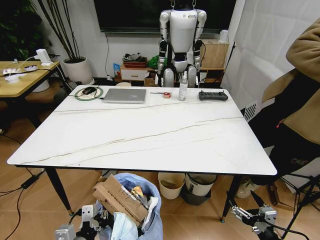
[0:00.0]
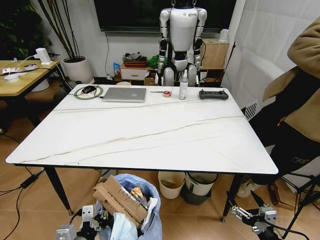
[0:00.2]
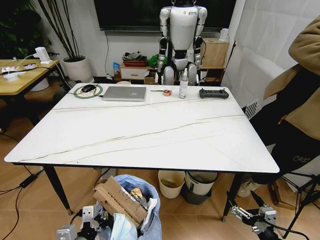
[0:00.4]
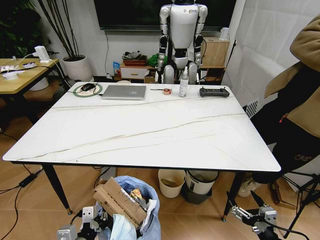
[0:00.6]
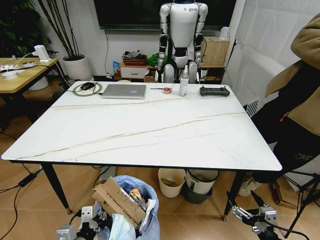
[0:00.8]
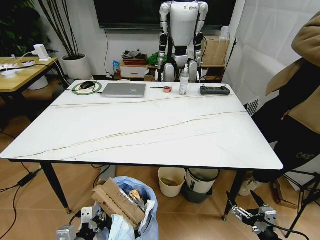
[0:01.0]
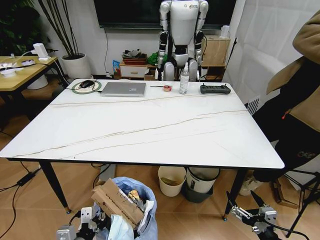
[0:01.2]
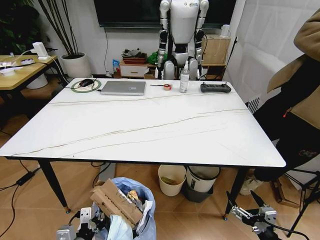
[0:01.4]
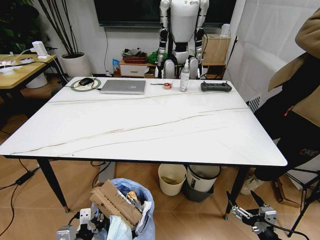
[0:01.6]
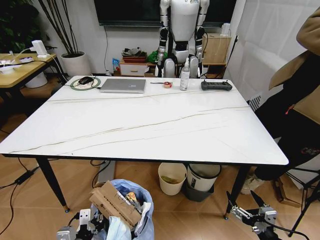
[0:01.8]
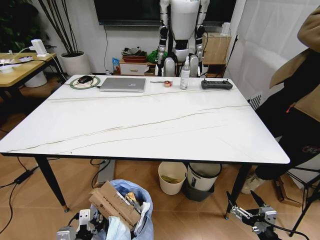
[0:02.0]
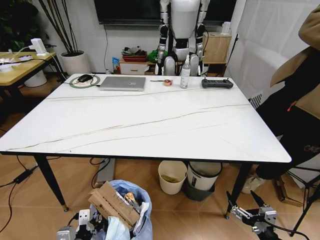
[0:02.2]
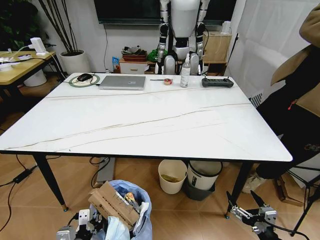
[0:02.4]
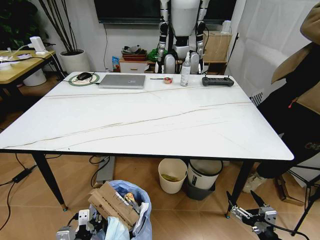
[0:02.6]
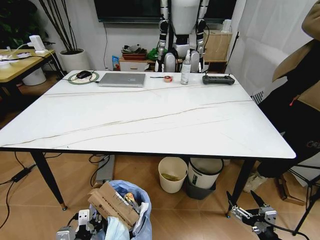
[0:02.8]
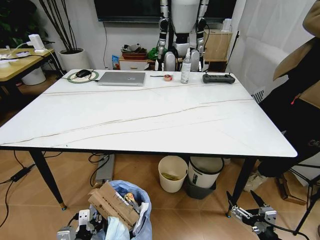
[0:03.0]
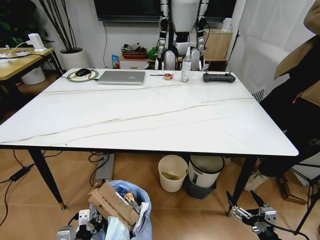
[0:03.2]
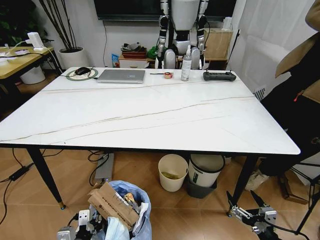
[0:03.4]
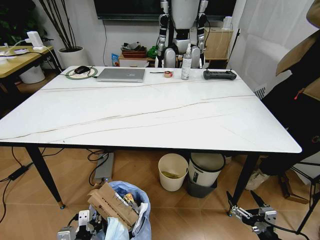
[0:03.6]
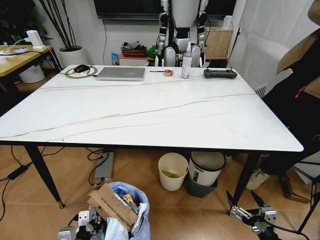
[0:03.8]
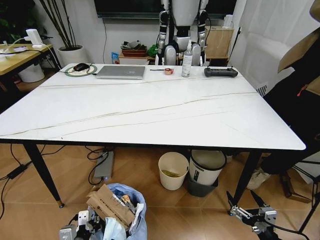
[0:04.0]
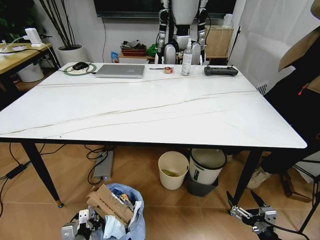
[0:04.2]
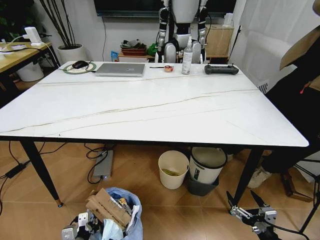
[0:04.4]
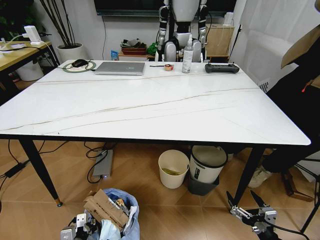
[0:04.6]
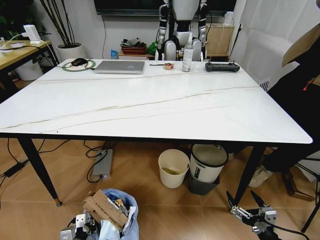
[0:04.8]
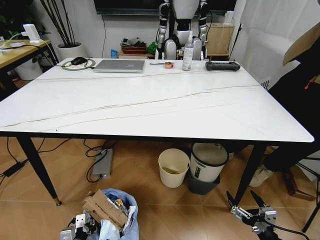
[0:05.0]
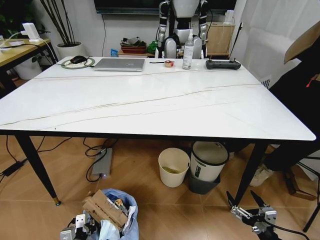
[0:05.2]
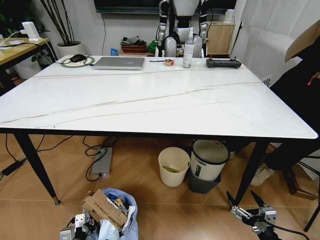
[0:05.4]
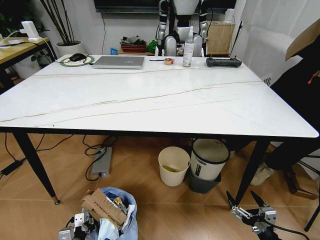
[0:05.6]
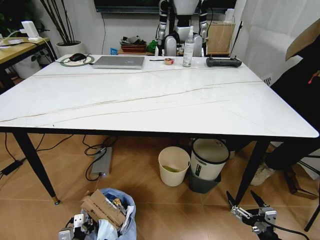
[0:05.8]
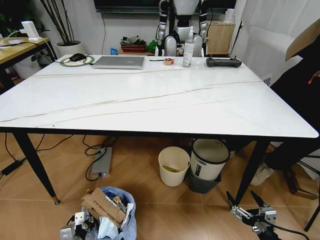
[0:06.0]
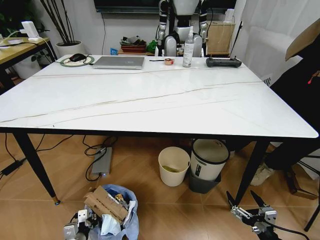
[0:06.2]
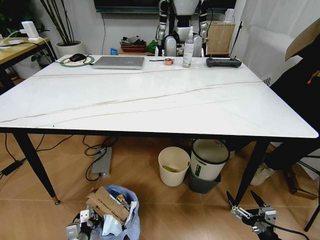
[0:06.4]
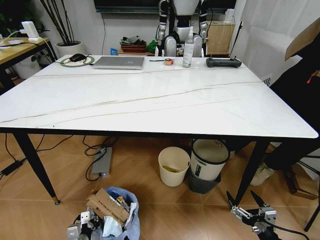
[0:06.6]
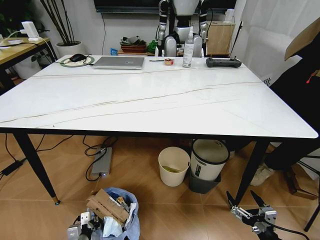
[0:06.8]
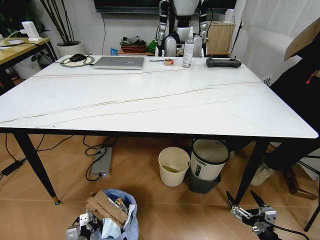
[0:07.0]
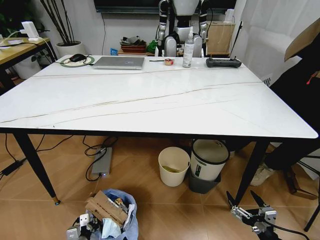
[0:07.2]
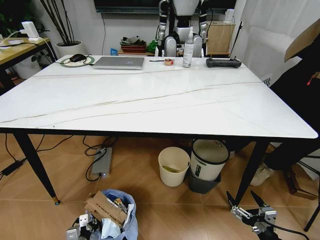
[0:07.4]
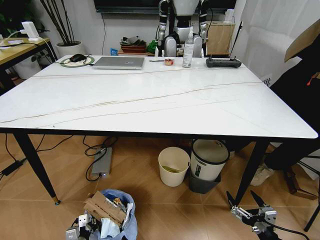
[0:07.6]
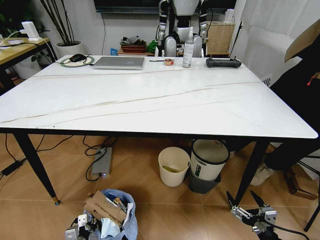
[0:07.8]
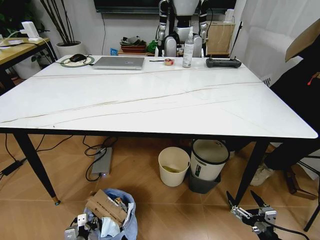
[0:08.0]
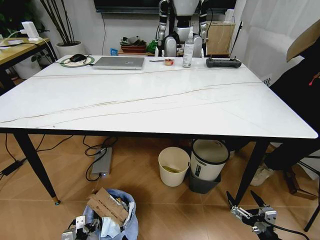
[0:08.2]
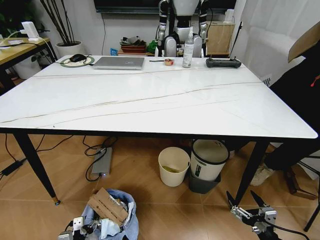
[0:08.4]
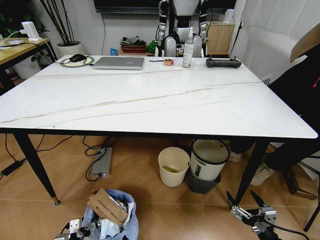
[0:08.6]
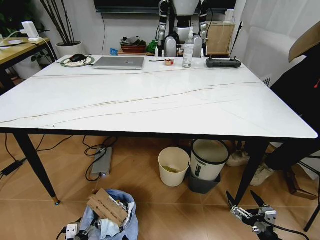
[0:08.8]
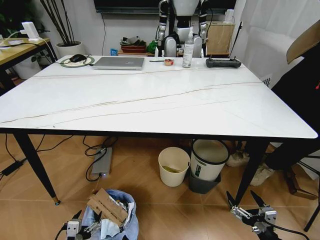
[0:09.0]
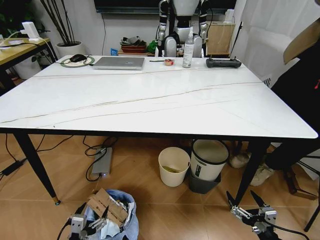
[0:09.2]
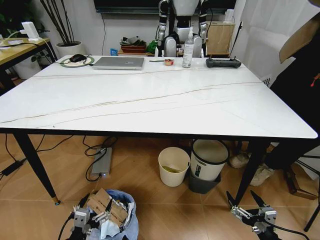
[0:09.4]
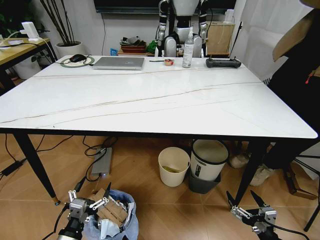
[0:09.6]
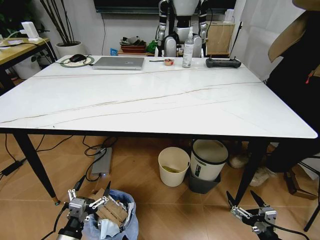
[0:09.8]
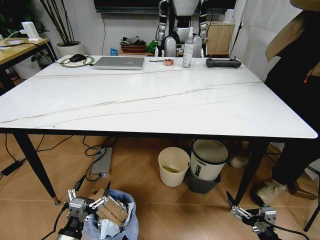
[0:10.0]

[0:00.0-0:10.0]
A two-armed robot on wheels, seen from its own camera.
Task of the whole recording: Pick up the trash bin and place the trash from the table into it.
0:02.8 to 0:04.2: The left gripper heads downward, covering about 5 cm.
0:04.2 to 0:05.8: The left gripper travels downward by roughly 5 cm.
0:05.8 to 0:07.2: The left gripper is displaced downward by approximately 5 cm.
0:07.2 to 0:08.6: The left gripper shifts by about 5 cm, and opens up.
0:08.6 to 0:10.0: The left gripper heads upward and to the right, covering approximately 15 cm, and opens.

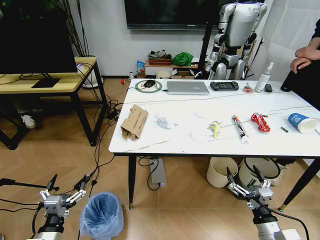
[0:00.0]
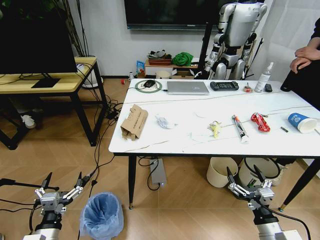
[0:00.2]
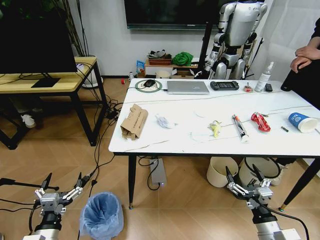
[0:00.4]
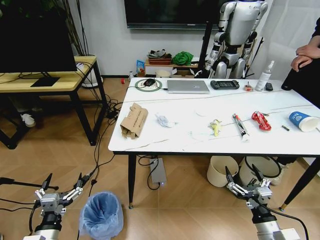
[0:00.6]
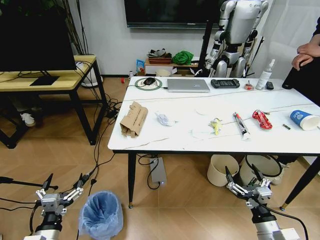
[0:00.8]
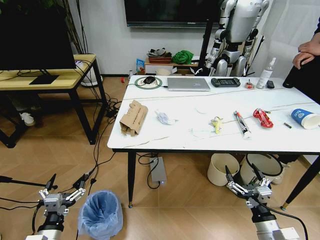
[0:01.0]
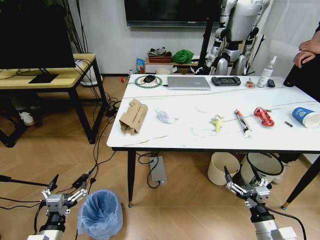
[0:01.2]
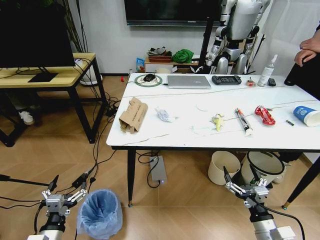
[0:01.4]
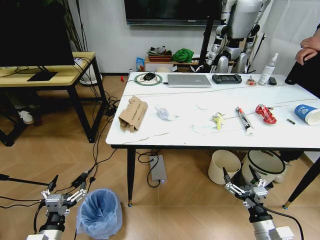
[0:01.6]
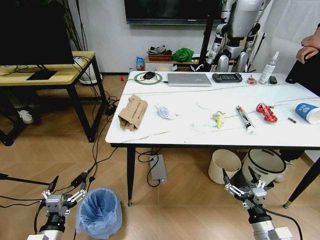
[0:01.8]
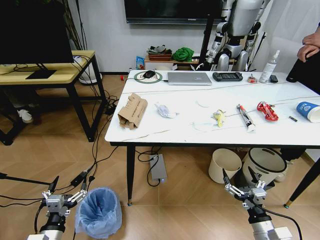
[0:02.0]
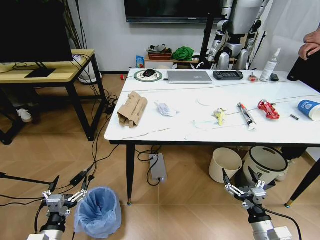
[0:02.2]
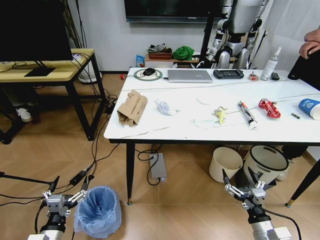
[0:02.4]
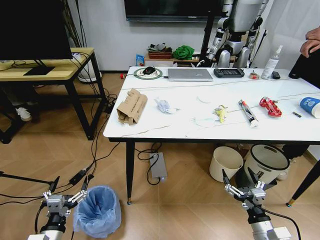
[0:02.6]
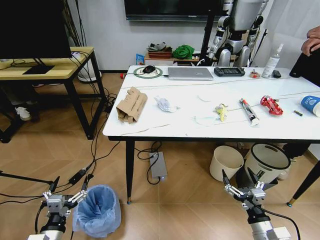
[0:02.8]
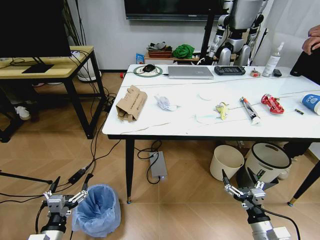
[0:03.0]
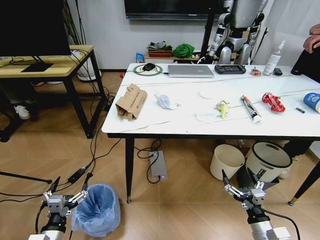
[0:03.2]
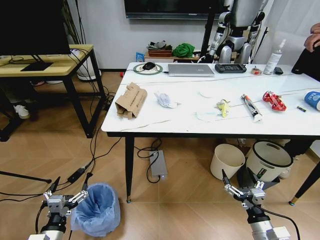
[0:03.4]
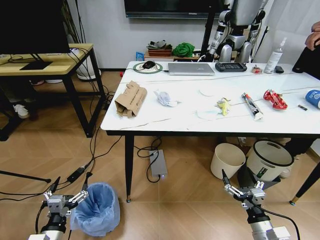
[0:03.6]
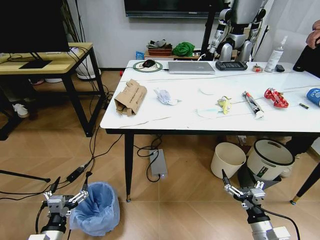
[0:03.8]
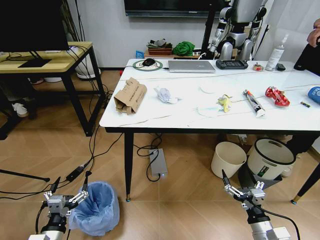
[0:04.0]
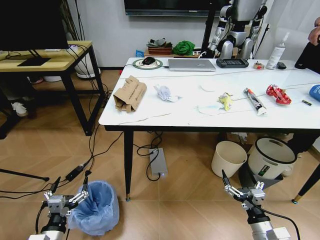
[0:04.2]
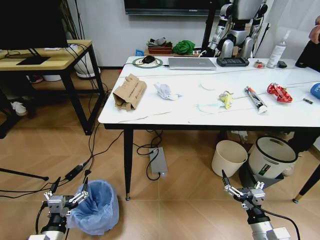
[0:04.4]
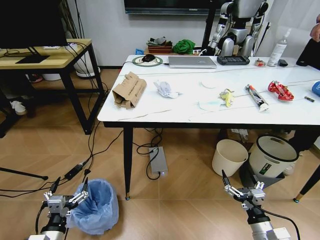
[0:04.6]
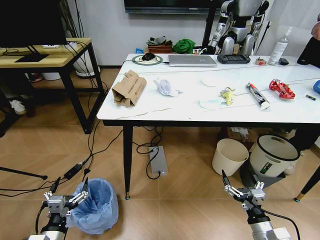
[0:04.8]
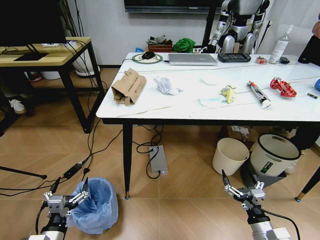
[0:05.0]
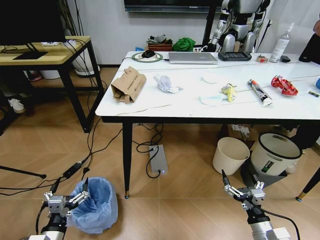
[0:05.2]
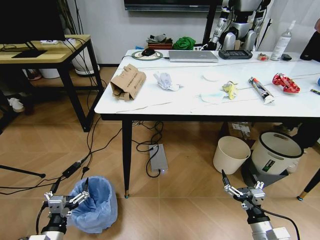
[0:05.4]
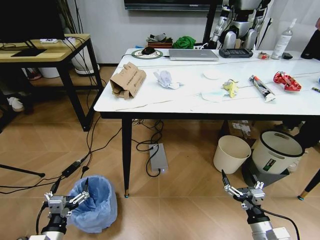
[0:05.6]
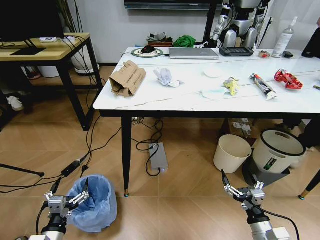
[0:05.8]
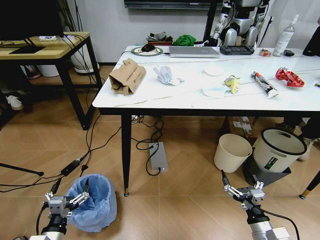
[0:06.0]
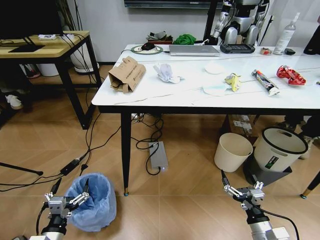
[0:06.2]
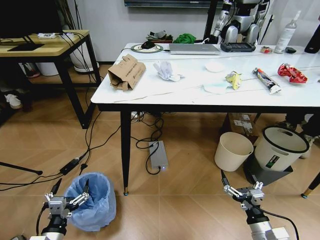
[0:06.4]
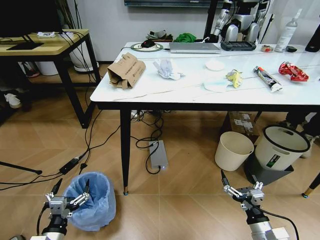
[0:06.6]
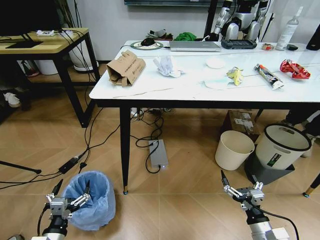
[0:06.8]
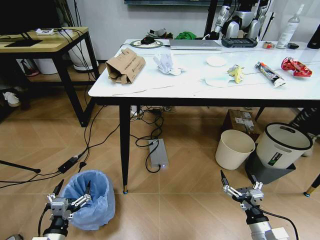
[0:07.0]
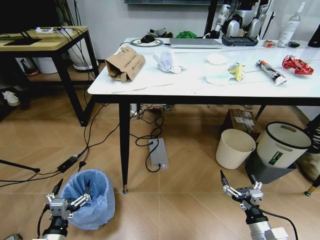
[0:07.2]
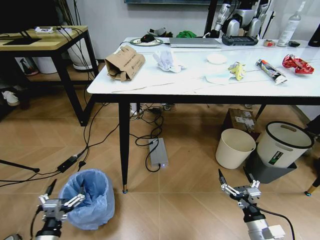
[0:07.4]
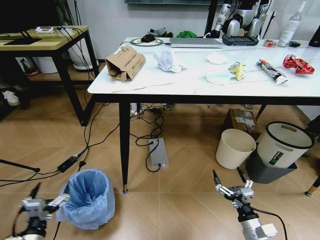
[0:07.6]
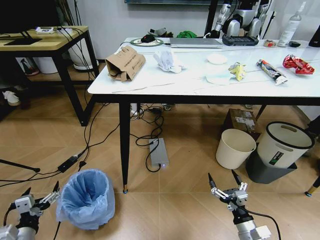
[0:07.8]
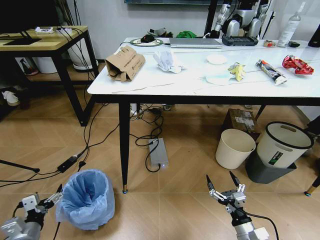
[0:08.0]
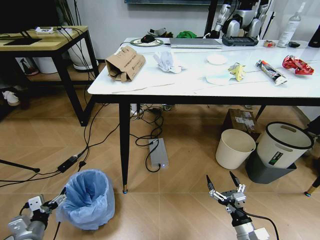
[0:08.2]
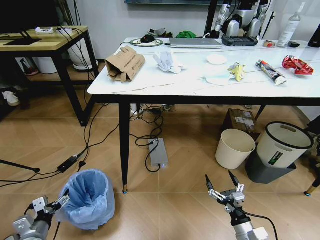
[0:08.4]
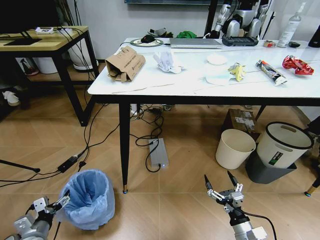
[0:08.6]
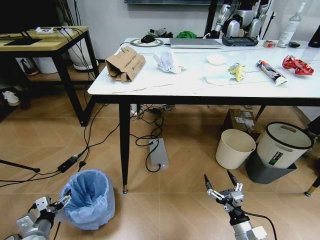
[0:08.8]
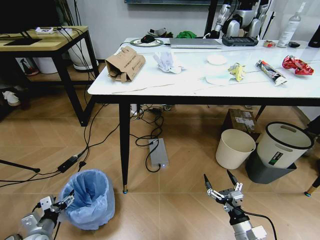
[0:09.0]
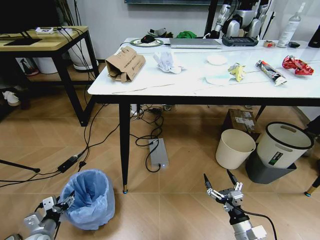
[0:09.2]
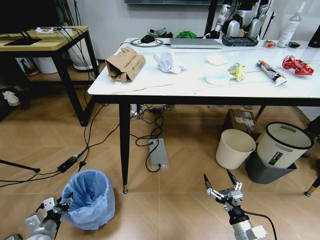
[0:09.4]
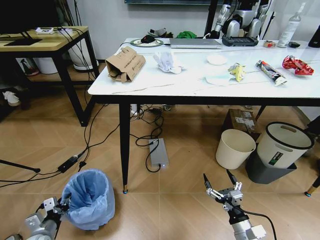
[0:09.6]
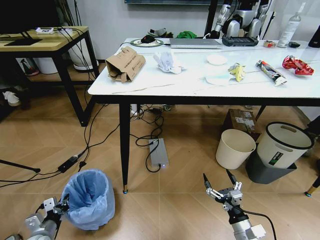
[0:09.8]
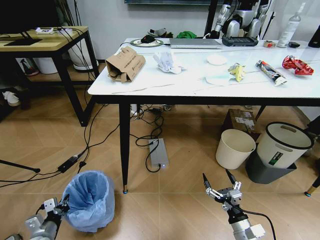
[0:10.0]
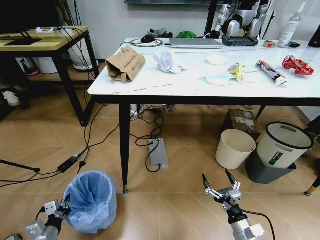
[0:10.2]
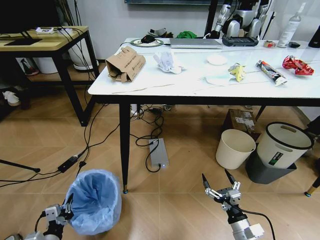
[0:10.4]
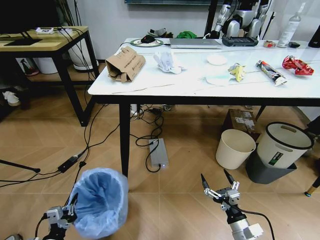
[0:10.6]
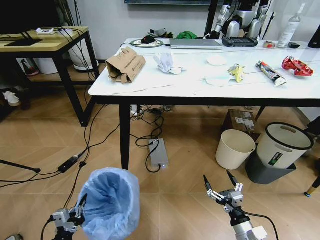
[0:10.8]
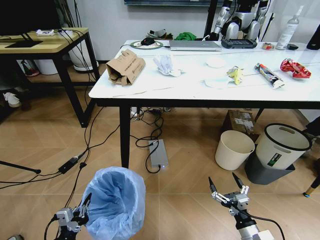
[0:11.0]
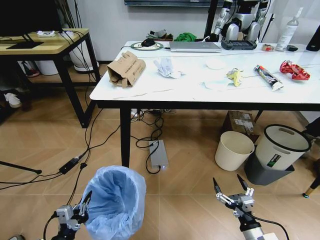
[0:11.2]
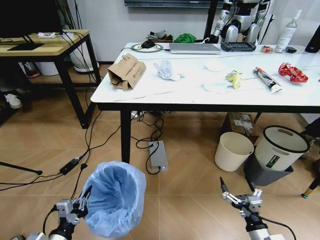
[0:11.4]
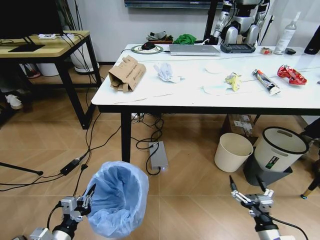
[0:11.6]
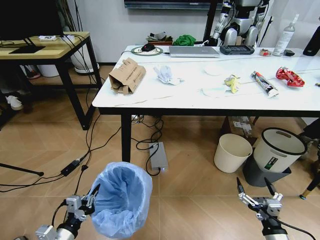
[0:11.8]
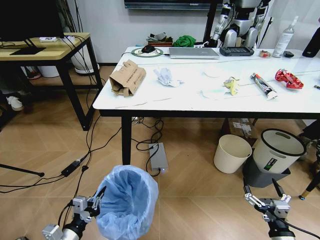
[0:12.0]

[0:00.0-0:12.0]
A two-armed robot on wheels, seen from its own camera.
Task of the whole recording: Pick up the trash bin and place the trash from the table into it.
0:06.0 to 0:07.6: The left gripper moves to the left, roughly 5 cm.
0:07.6 to 0:09.0: The left gripper travels downward and forward by roughly 10 cm.
0:09.0 to 0:10.4: The left gripper travels backward and to the right by some 10 cm, and closes.
0:10.4 to 0:12.0: The left gripper heads upward and to the right, covering approximately 10 cm; the right gripper moves to the right and backward, some 10 cm.
